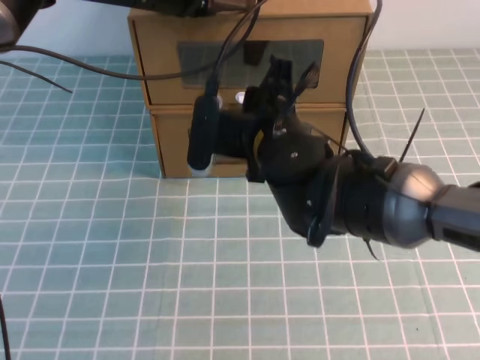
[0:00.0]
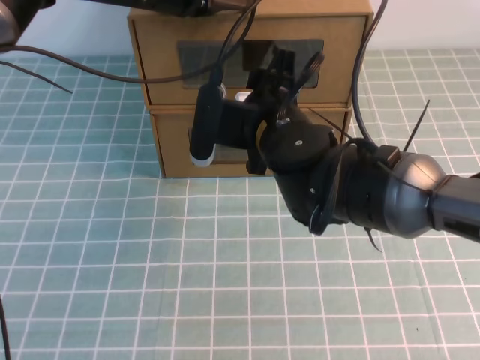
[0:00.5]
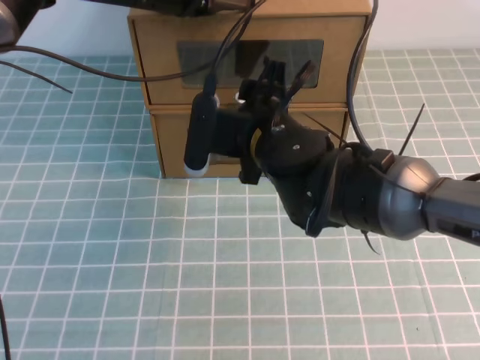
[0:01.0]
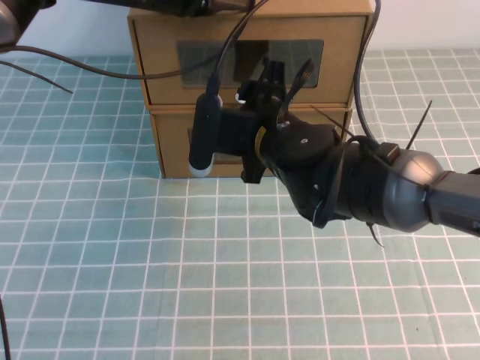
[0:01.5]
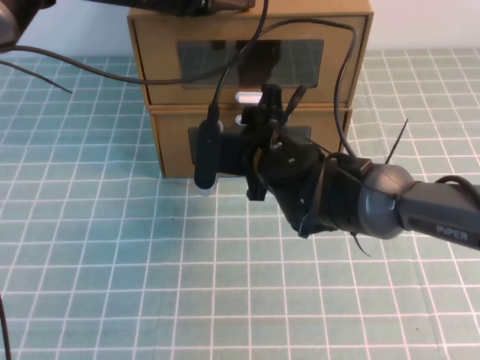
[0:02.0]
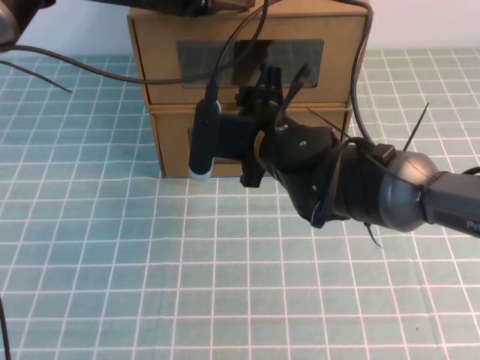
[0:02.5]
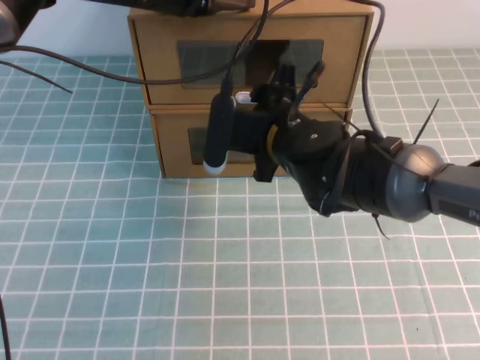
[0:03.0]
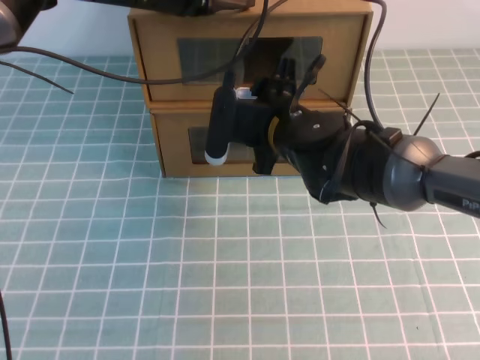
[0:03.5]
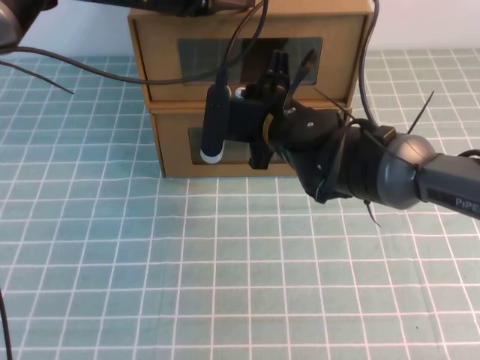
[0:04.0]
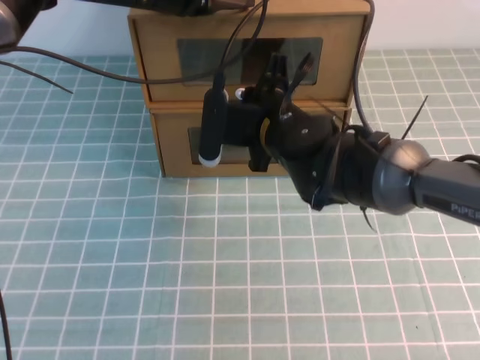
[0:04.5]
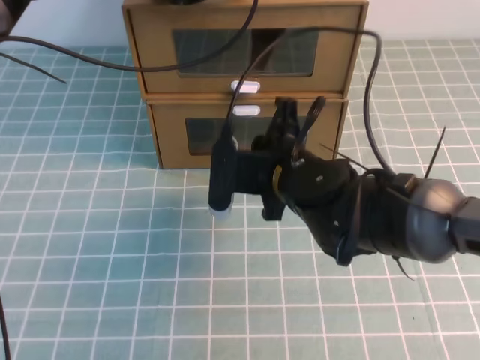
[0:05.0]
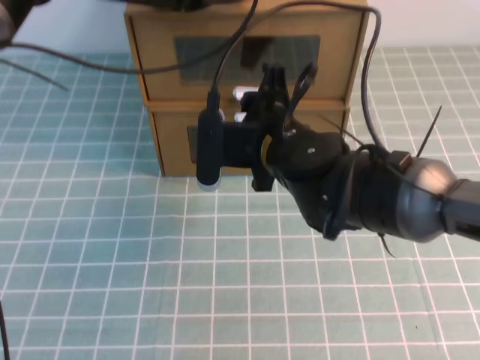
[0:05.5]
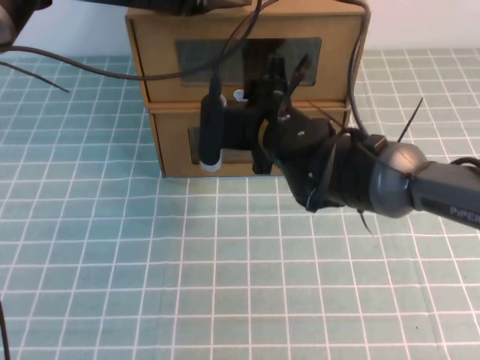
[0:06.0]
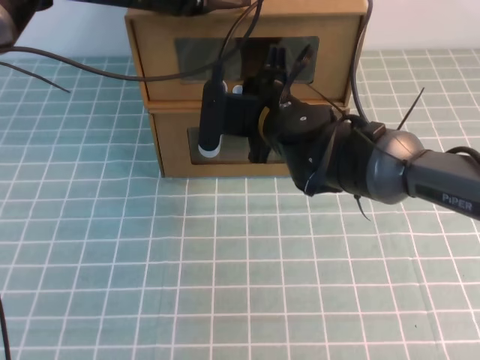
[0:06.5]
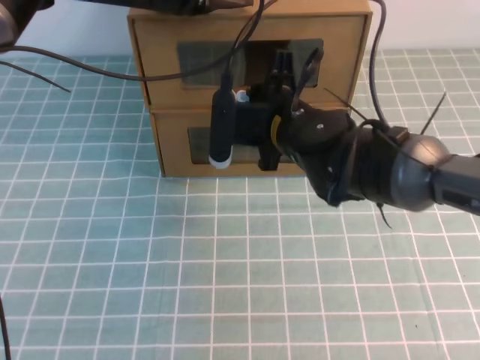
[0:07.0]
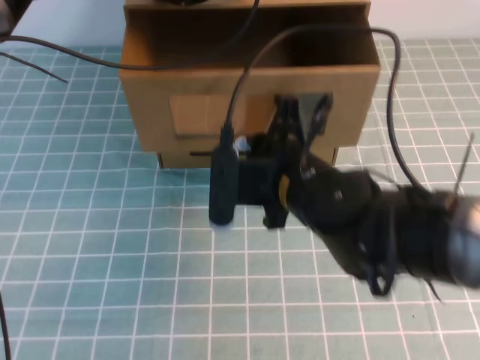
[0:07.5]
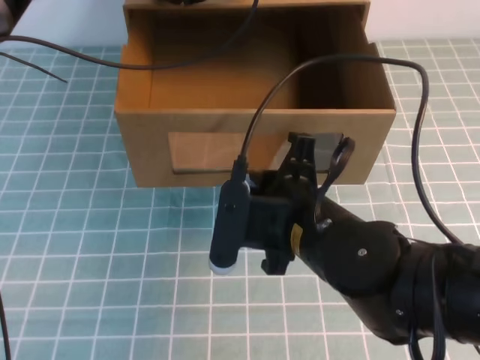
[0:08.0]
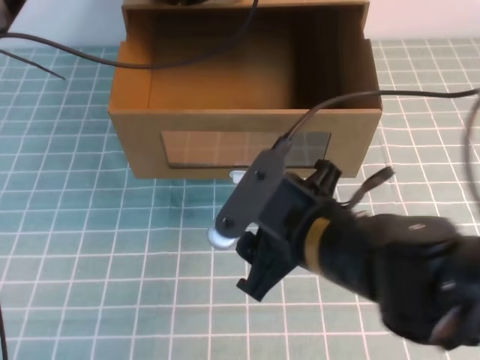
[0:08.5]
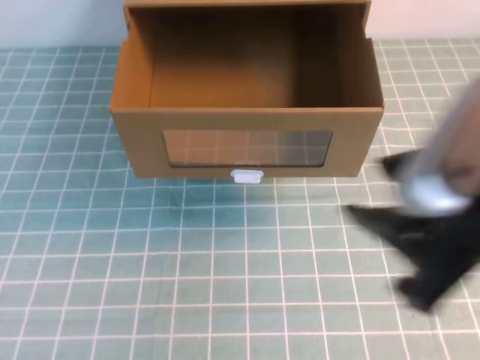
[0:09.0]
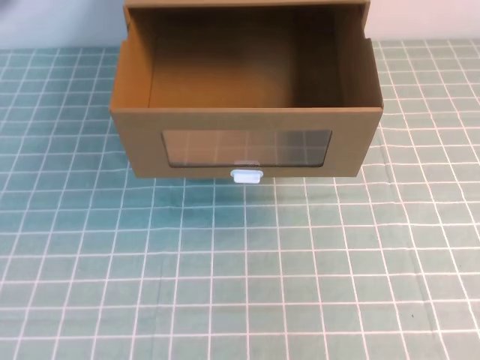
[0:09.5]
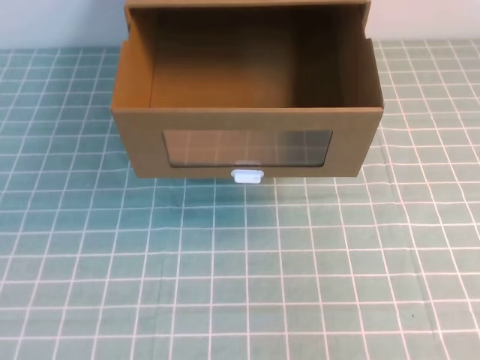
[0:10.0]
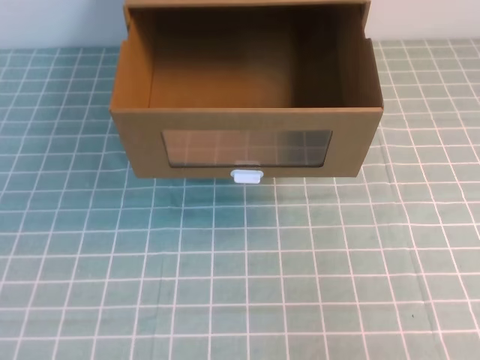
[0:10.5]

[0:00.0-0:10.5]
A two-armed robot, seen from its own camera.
Task of the whole recording: open the shoebox on the cyan tablecloth.
0.0 to 2.0 s: The right gripper changes place by approximately 5 cm, and opens up.
2.0 to 4.0 s: The right gripper closes its fingers.
4.0 to 6.5 s: The right gripper opens and closes again.
6.5 to 8.5 s: The right gripper moves backward, roughly 15 cm.
8.5 to 10.5 s: The left gripper shifts about 50 cm backward and to the left. Meanwhile the right gripper is displaced to the right, backward and upward by about 30 cm, and closes.

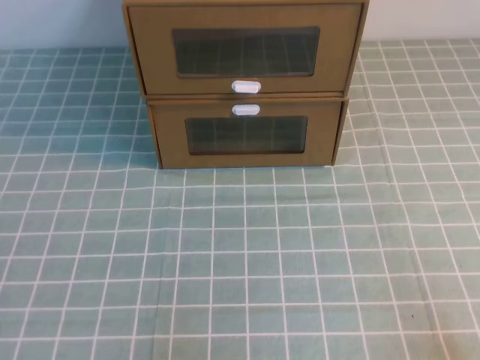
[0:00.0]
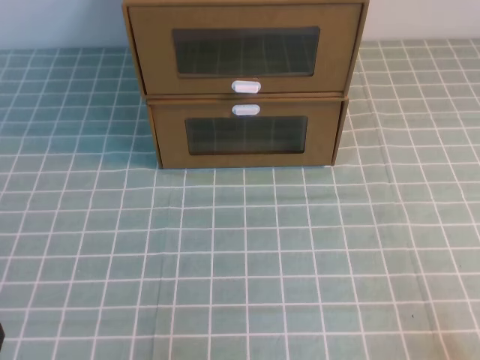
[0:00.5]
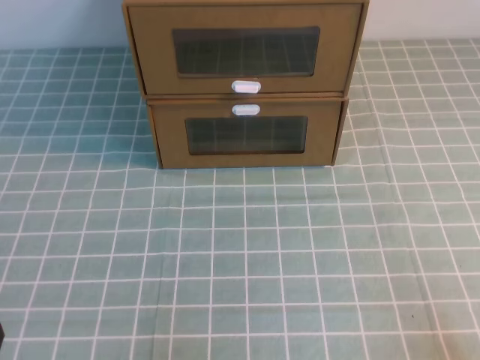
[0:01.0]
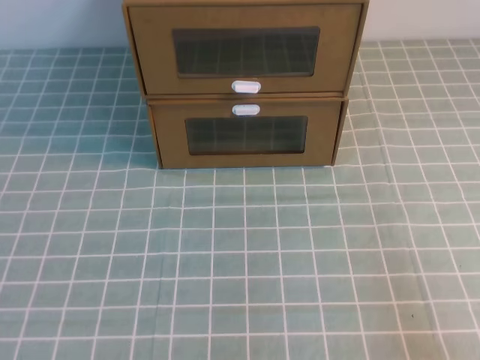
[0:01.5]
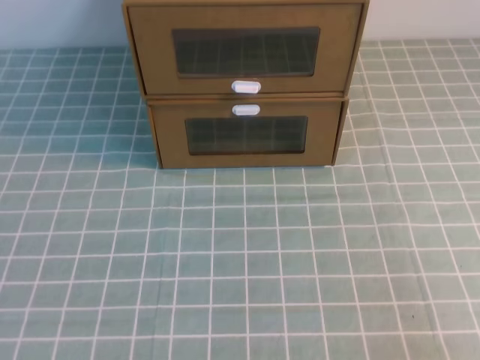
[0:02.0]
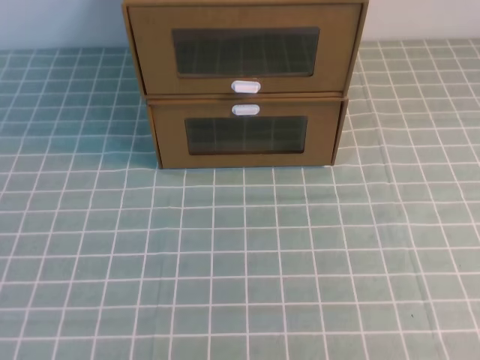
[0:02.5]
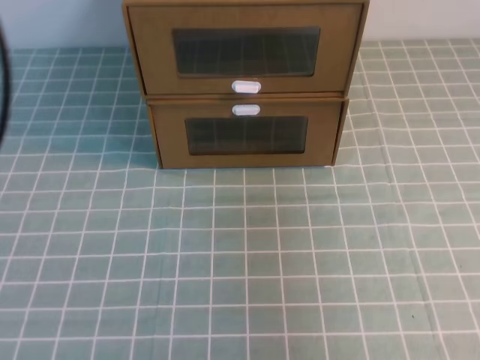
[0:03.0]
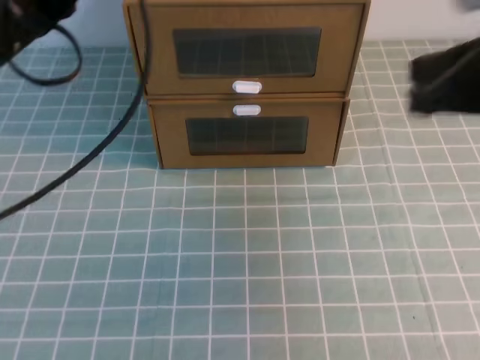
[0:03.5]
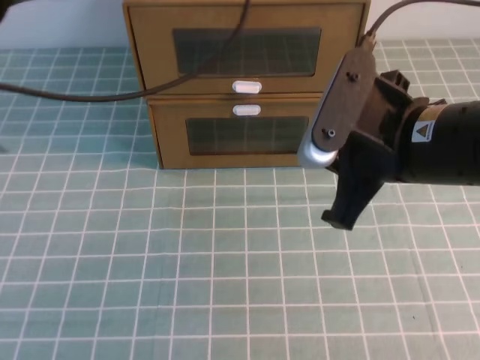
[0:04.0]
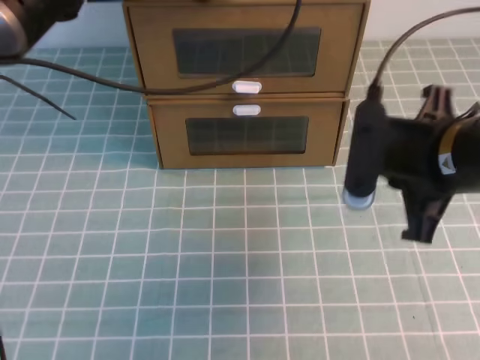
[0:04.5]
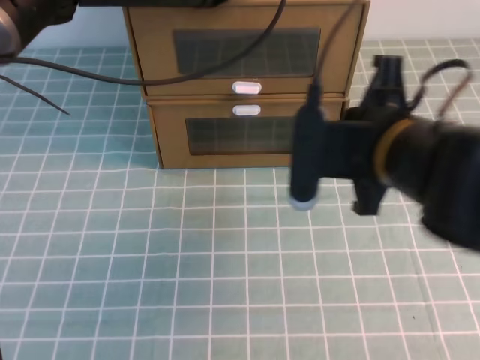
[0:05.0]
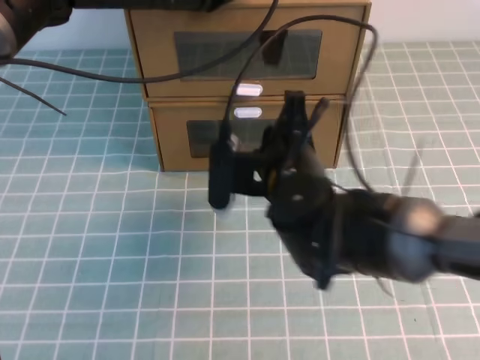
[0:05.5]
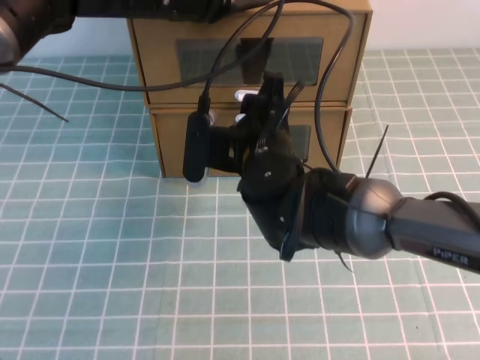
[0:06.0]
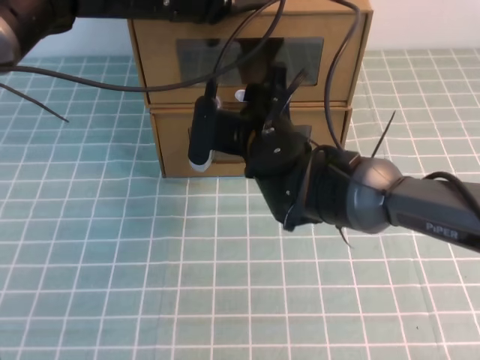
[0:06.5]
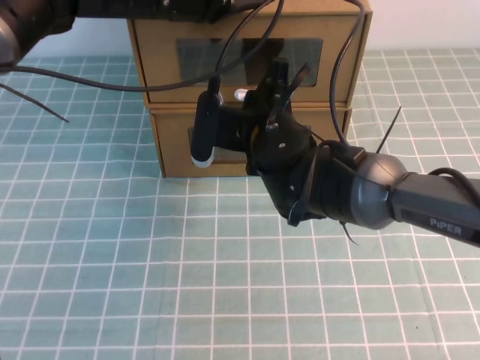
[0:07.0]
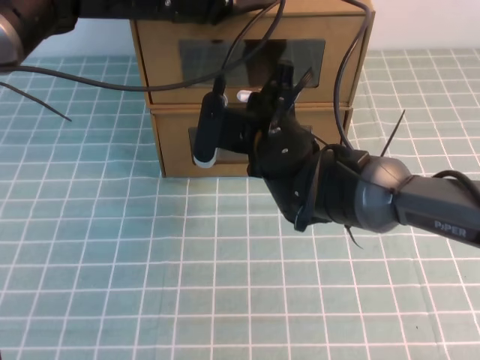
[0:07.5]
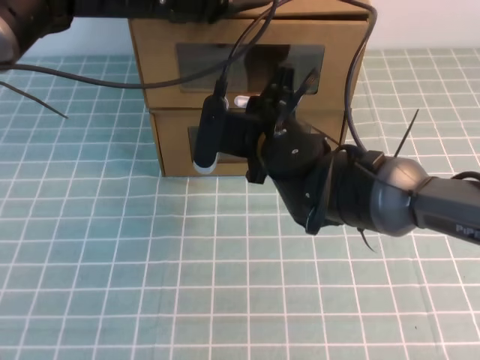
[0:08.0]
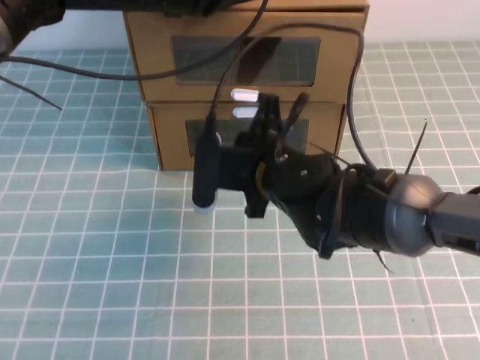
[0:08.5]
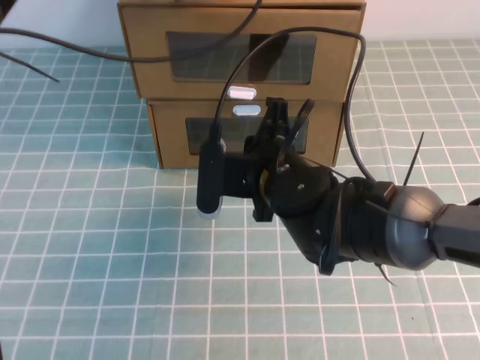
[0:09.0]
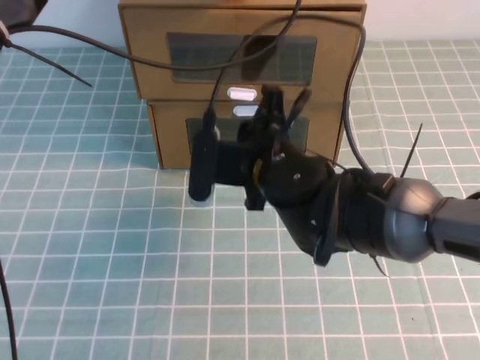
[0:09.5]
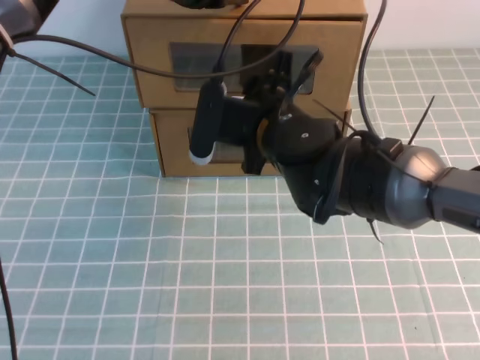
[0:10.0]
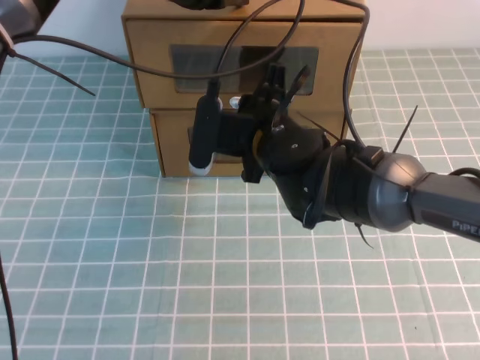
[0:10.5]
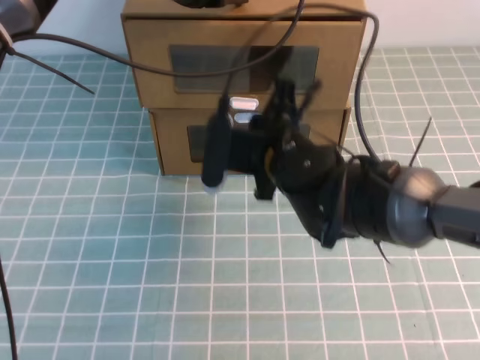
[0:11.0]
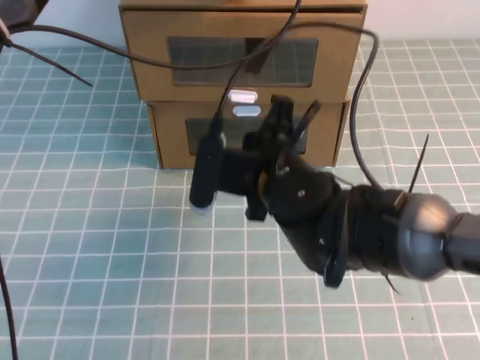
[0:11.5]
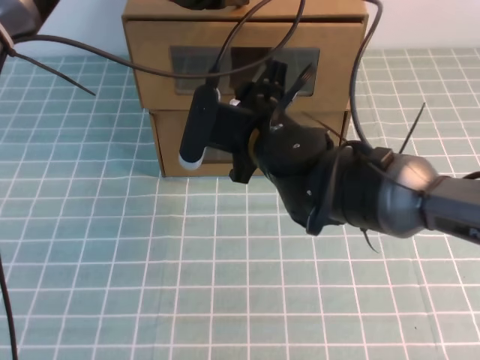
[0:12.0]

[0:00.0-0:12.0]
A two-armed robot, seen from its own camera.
Task of the whole recording: open the shoebox on the cyan tablecloth.
2.0 to 4.0 s: The right gripper moves forward and to the left, about 30 cm. Meanwhile the left gripper heads forward, to the right and upward, covering approximately 40 cm.
4.0 to 6.0 s: The left gripper shifts by roughly 5 cm. Meanwhile the right gripper shifts roughly 15 cm to the left, forward and downward, and opens its fingers.
6.0 to 8.0 s: The right gripper closes.
8.0 to 10.0 s: The right gripper opens its fingers.
10.0 to 12.0 s: The right gripper closes and opens again.

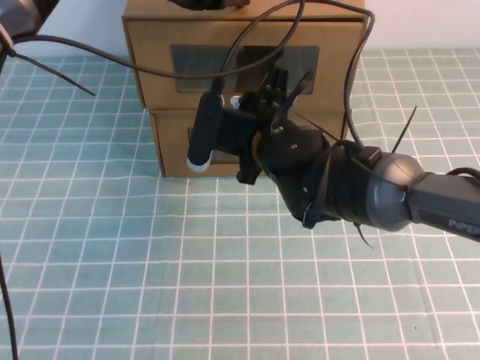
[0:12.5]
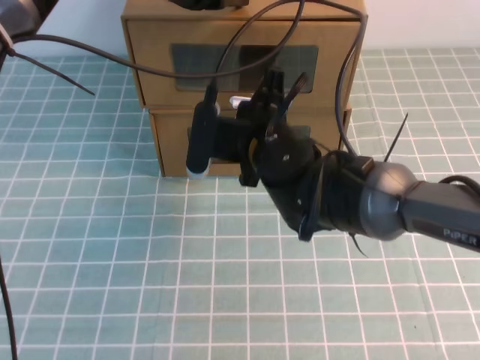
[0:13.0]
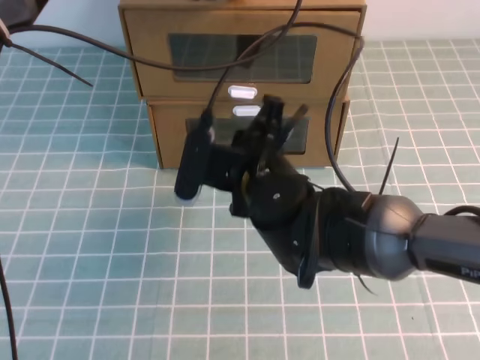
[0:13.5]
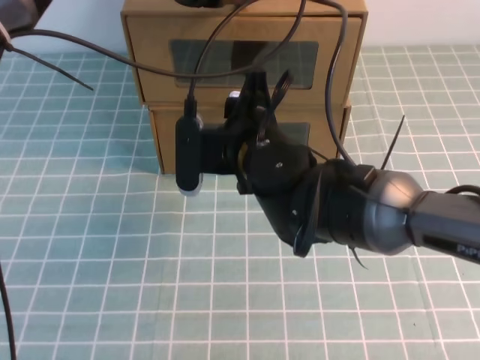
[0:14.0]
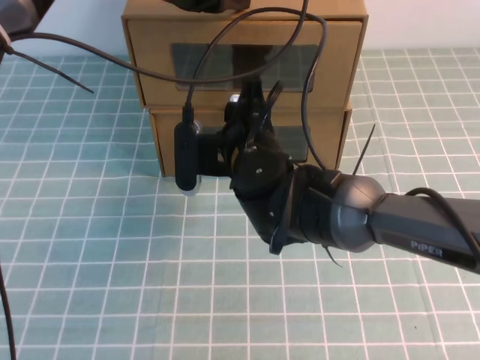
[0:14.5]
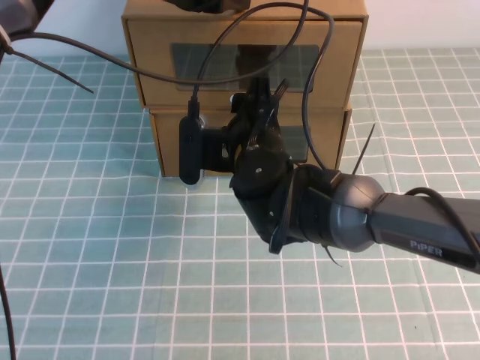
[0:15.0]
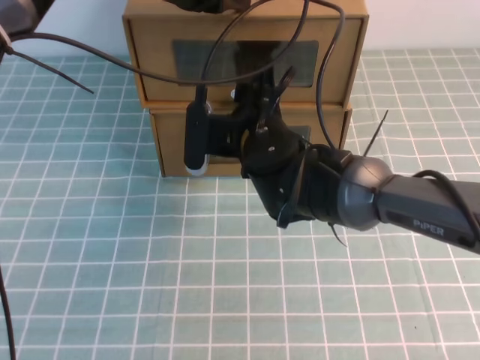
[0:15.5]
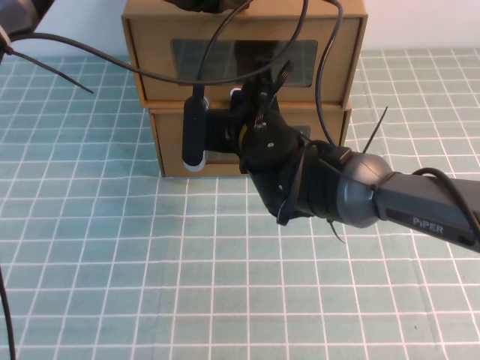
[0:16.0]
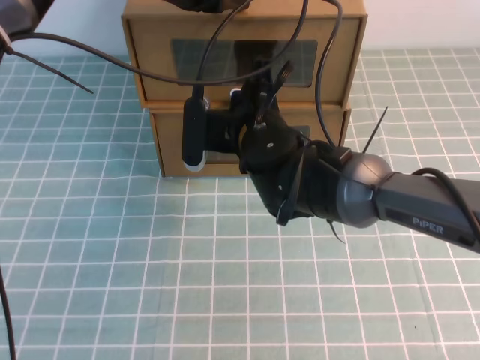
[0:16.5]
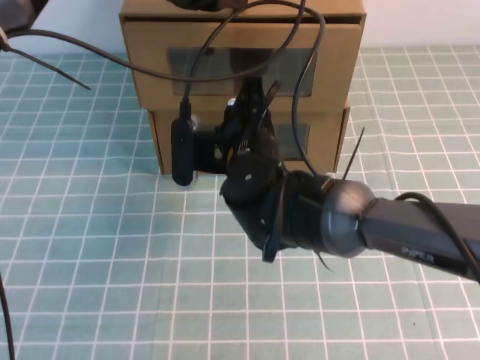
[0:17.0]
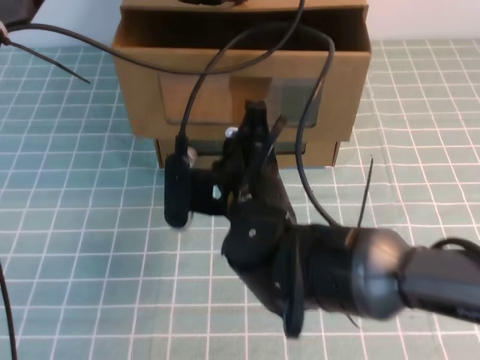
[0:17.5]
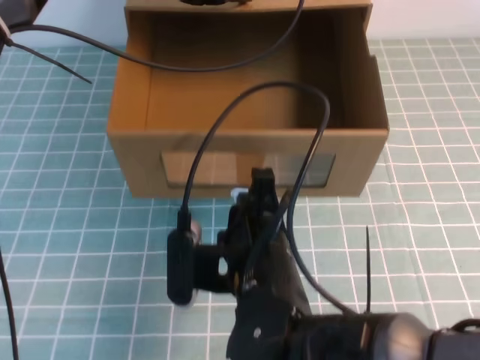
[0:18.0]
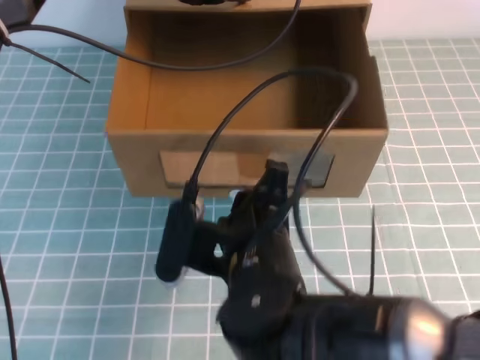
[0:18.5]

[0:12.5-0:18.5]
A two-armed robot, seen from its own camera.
Task of the whole recording: open the shoebox on the cyan tablecloth.
12.5 to 14.5 s: The right gripper opens.
14.5 to 16.5 s: The right gripper closes.
16.5 to 18.5 s: The right gripper travels backward by about 15 cm.
